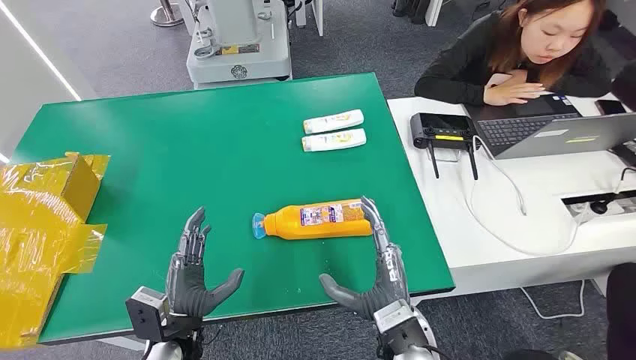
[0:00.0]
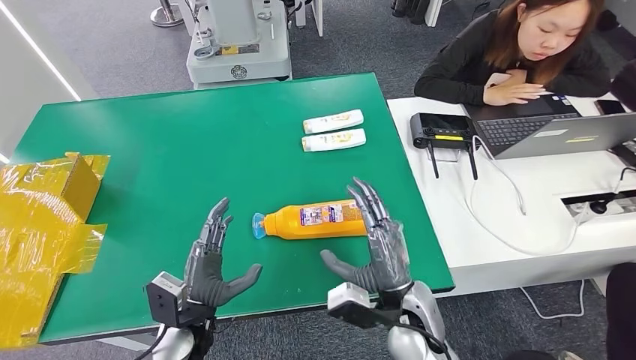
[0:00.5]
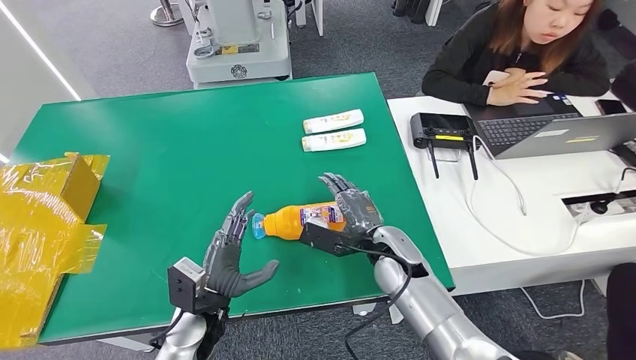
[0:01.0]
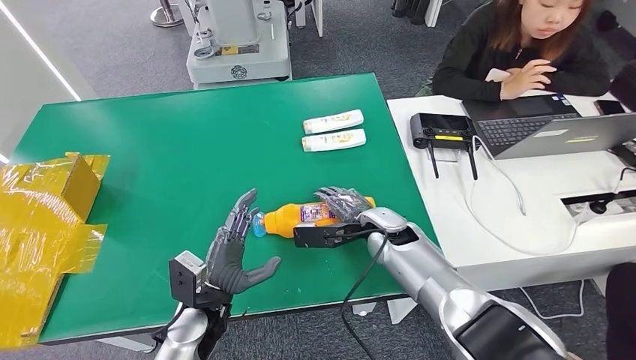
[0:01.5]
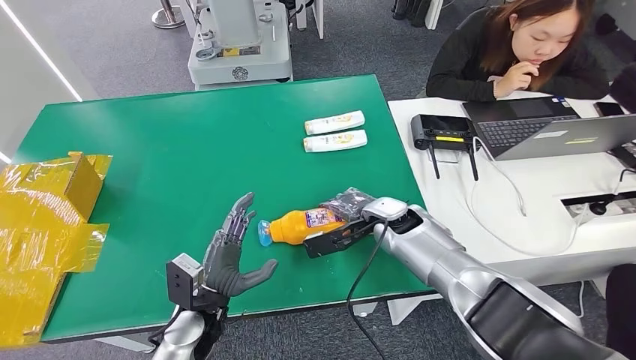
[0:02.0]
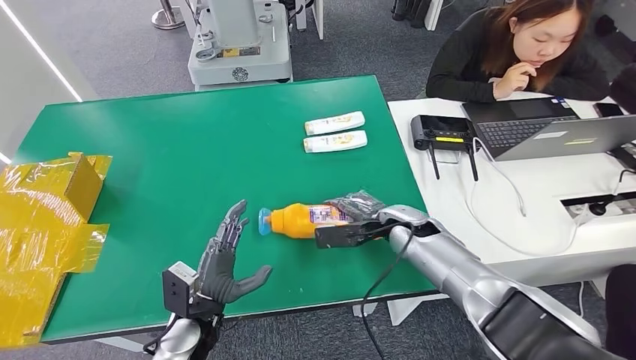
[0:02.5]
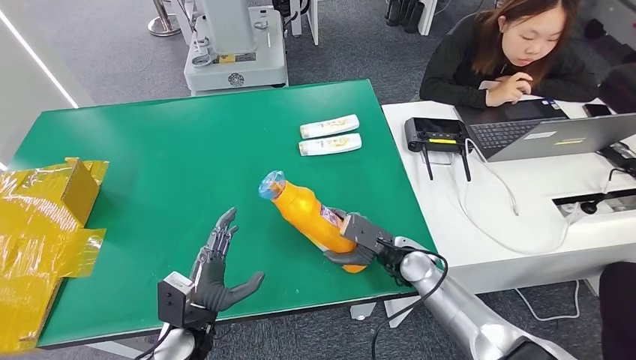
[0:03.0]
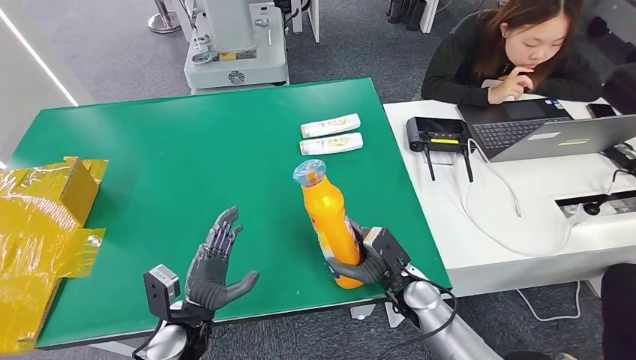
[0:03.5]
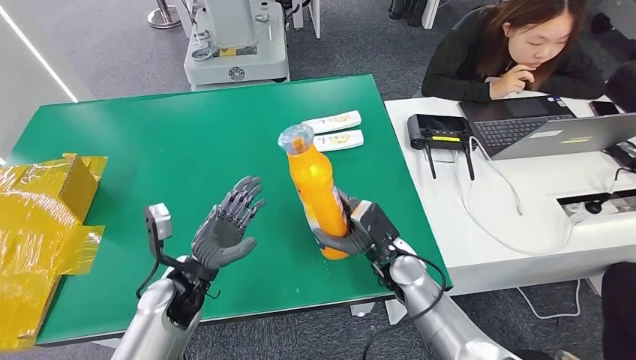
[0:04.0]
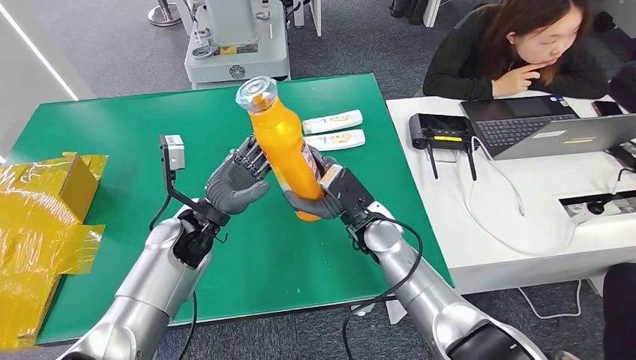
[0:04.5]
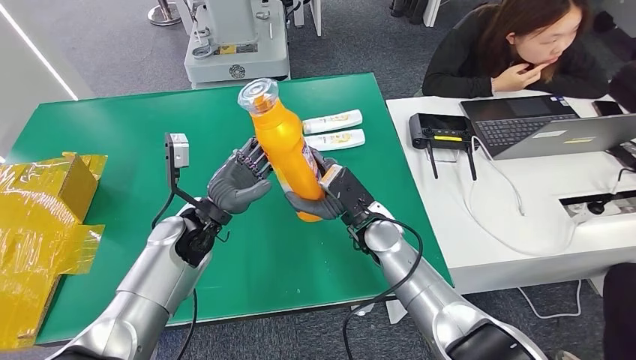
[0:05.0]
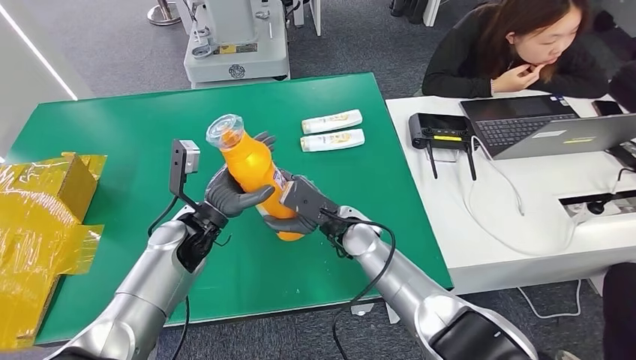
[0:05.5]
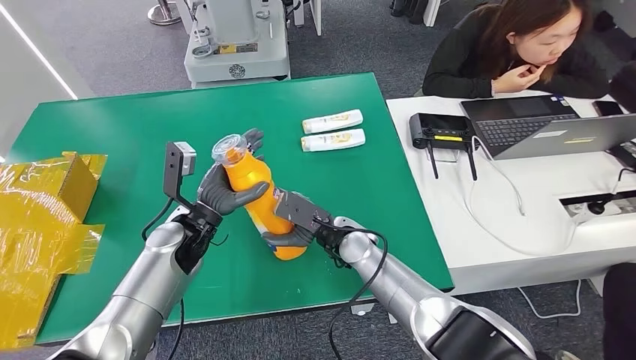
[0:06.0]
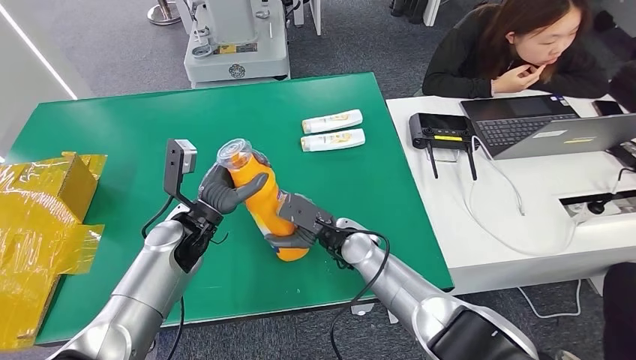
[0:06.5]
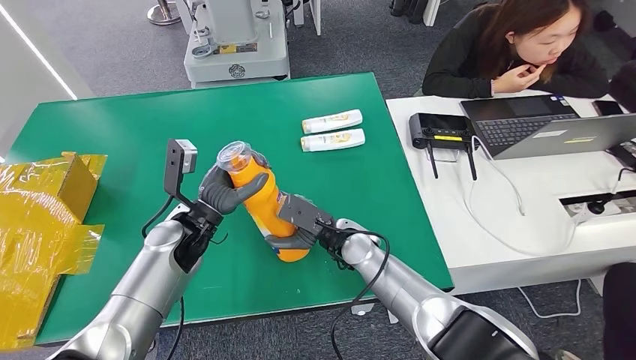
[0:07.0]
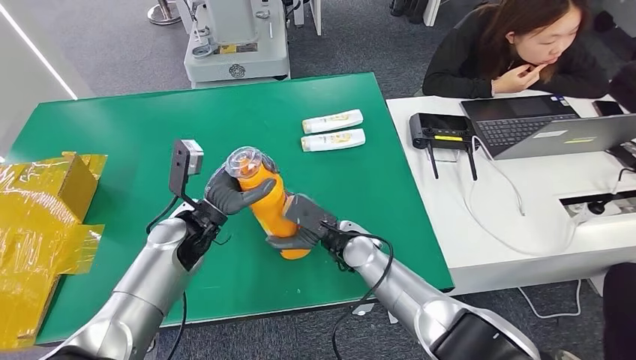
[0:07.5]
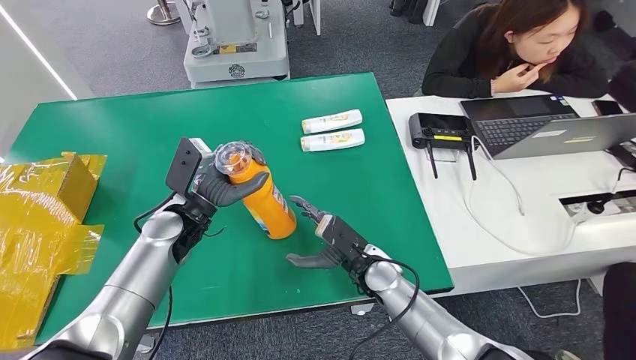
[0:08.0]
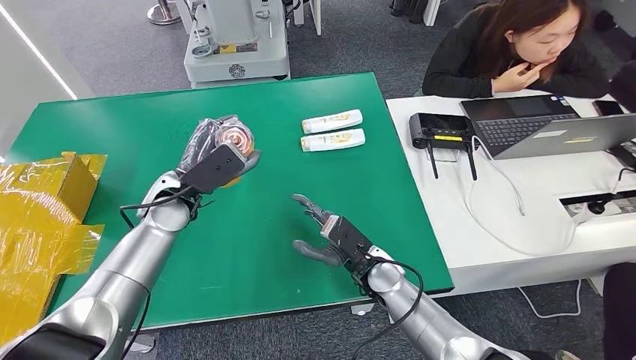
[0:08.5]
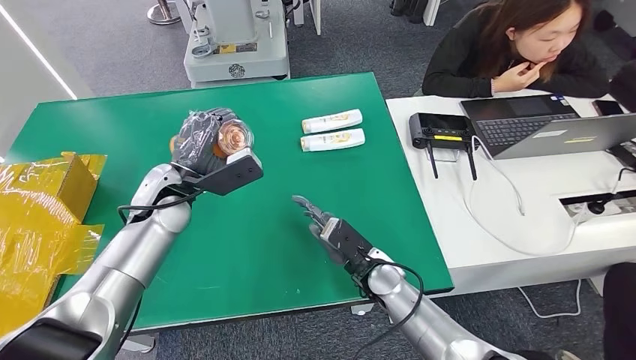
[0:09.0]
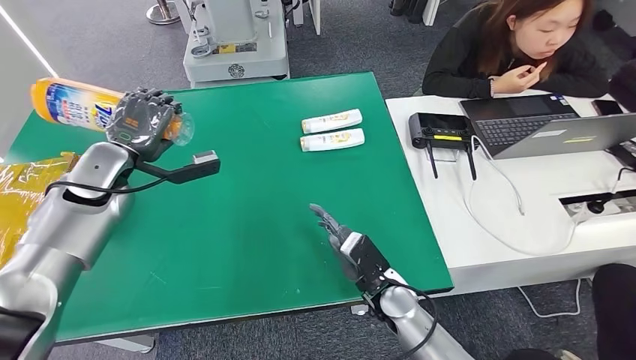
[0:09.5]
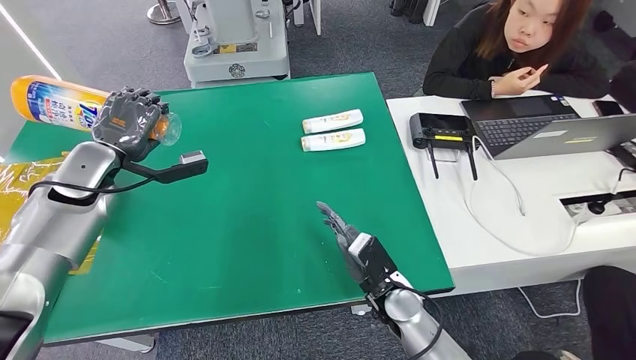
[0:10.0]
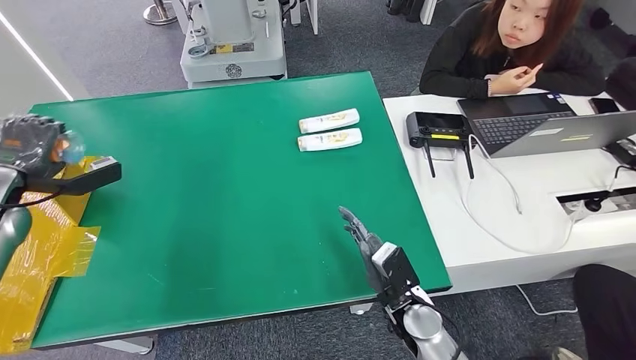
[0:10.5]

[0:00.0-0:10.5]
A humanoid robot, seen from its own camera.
Step, 0:00.0 to 0:03.0: Pick up the bottle from the table.
Step, 0:03.5 to 0:10.5: Turn the bottle to the front side.
0:06.5 to 0:08.5: The left hand moves some 5 cm, while the right hand ends up about 10 cm from where it was.
